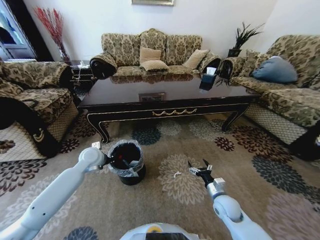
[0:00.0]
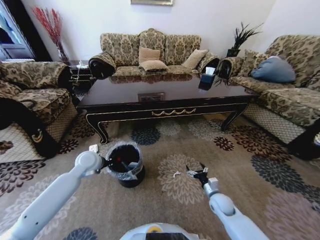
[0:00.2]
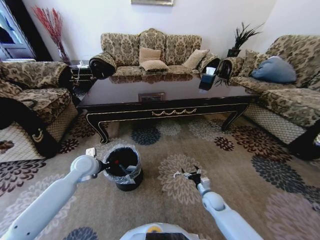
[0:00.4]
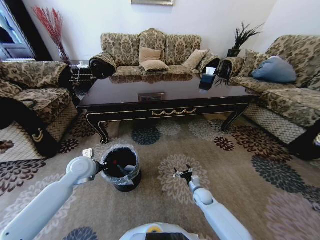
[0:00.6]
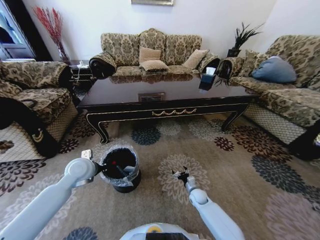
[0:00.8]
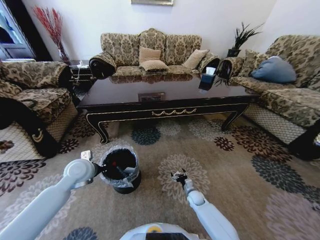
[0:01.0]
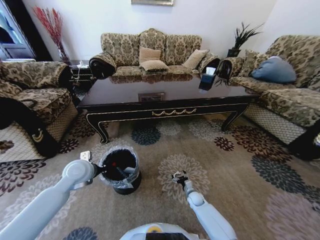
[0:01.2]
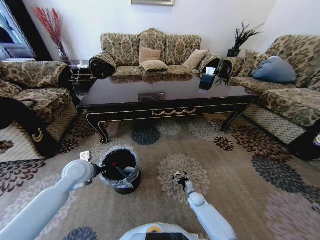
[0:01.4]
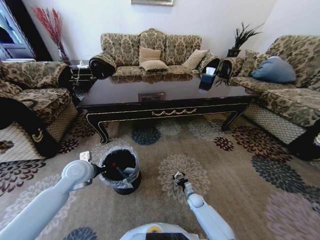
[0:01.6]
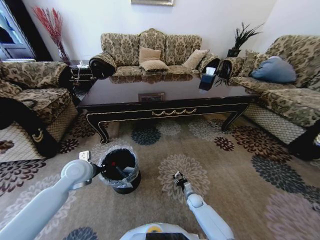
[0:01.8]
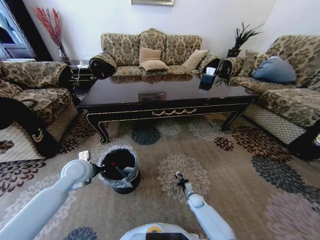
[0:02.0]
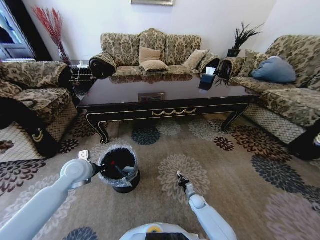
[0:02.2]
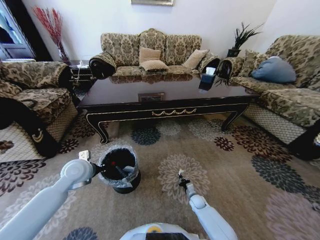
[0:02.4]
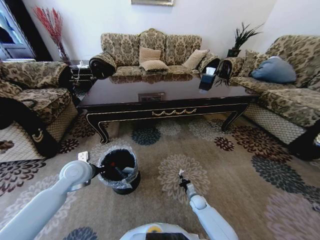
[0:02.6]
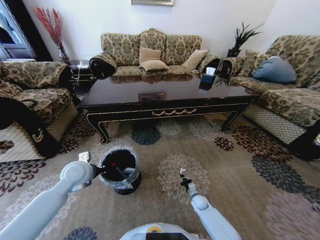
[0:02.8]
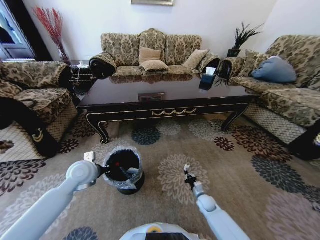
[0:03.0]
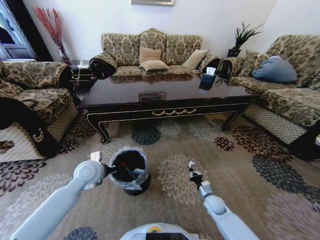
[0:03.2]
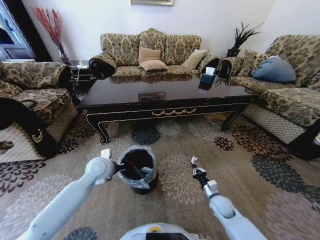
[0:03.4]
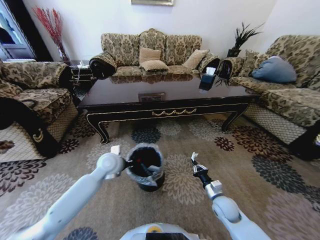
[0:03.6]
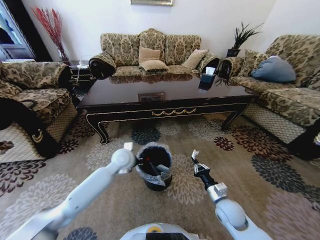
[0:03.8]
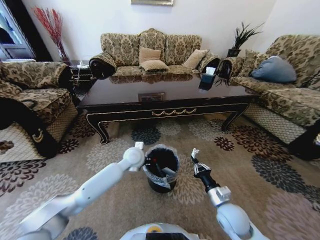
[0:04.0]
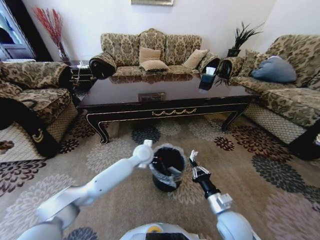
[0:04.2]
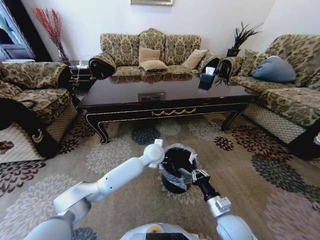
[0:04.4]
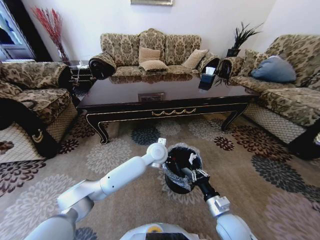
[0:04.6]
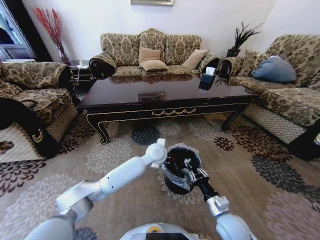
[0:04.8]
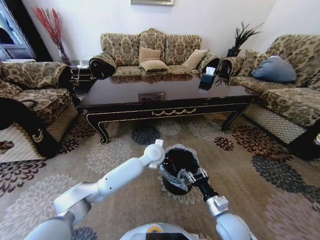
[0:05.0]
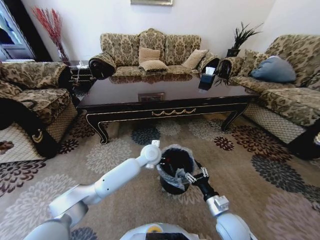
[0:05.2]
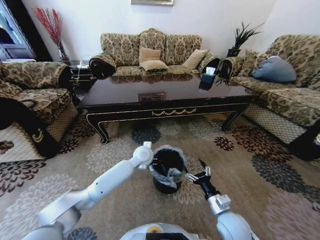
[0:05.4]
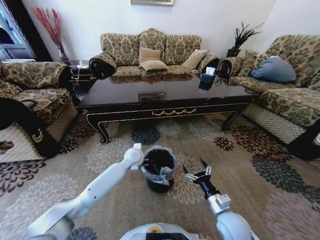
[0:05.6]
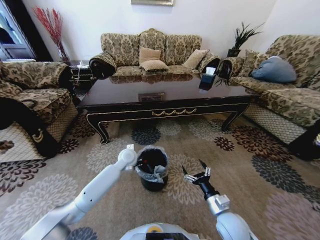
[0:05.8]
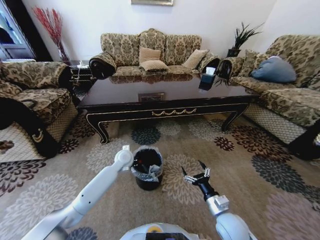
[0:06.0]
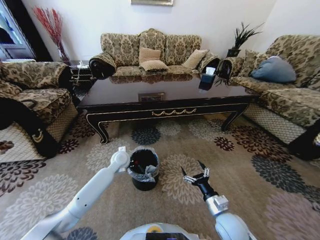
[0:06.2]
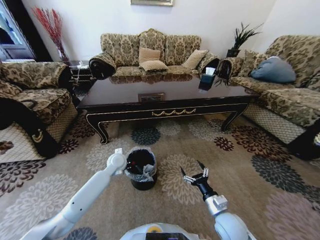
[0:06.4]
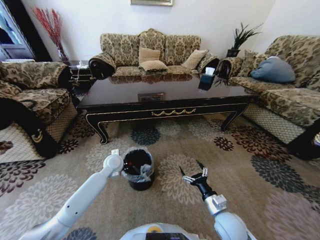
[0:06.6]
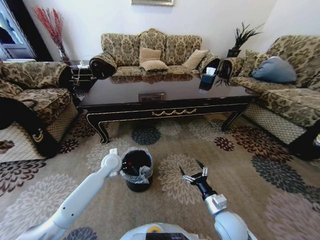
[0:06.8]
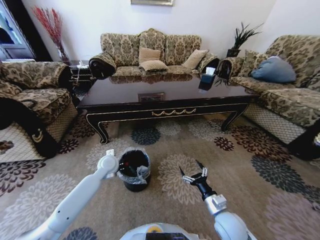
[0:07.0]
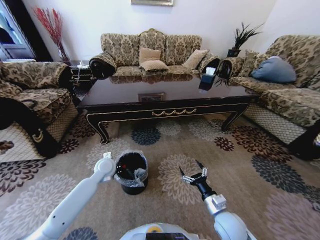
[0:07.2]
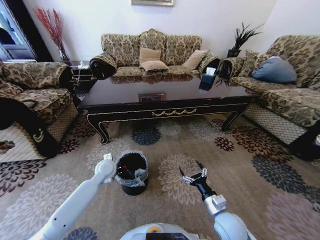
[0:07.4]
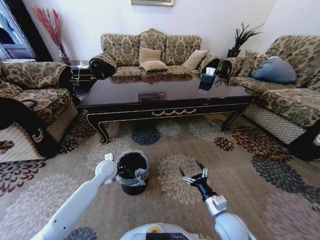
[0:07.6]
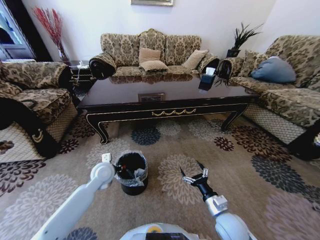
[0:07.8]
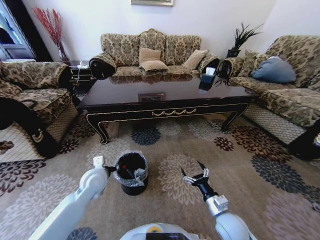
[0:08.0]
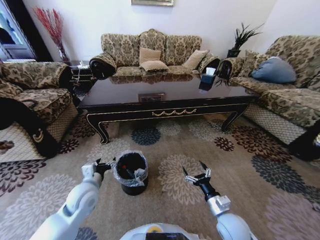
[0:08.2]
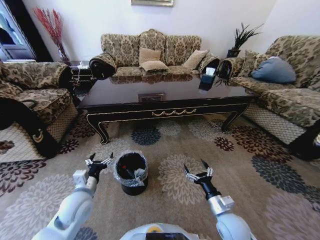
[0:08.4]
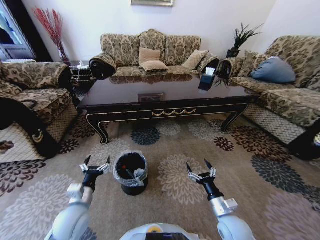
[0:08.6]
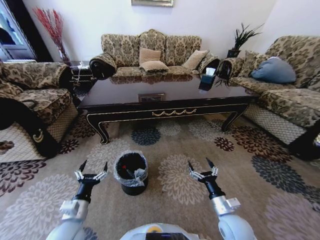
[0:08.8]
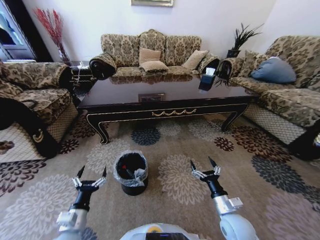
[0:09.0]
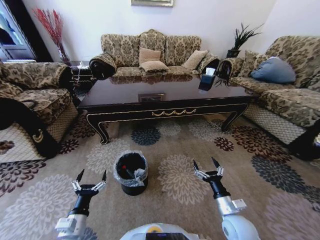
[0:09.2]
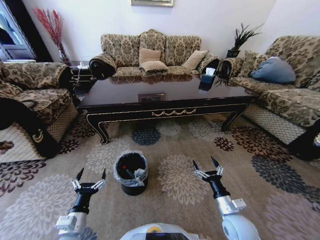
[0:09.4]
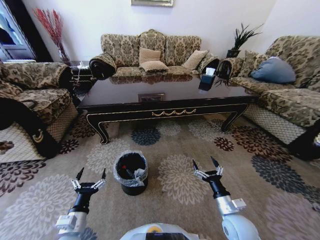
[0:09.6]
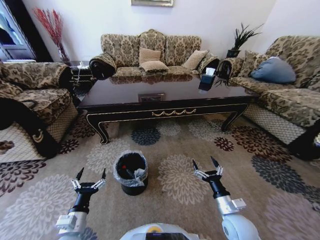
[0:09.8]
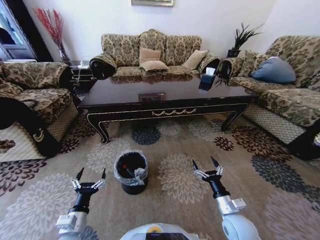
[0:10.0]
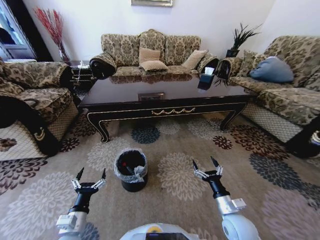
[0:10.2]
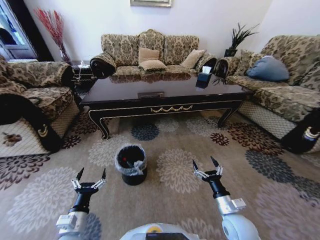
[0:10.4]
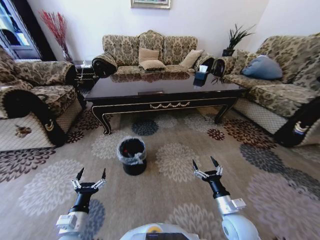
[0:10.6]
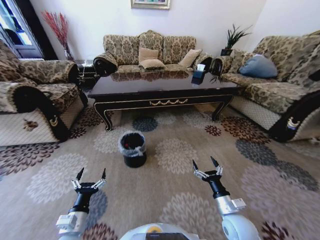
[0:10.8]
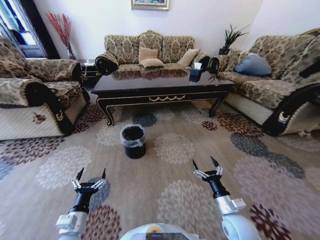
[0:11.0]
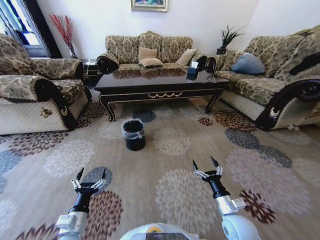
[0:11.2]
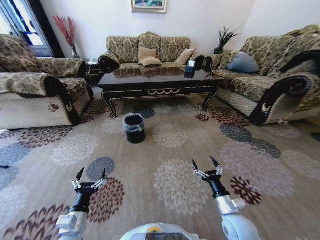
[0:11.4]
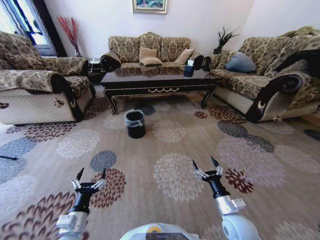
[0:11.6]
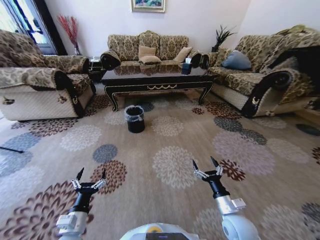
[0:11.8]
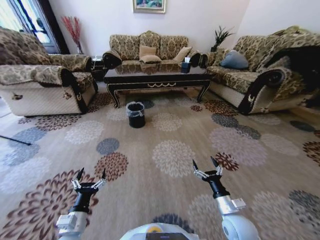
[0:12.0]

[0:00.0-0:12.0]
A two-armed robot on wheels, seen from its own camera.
Task of the whole recording: Move to the front of the table and pick up the trash from the floor, then place it into the trash bin.
0:00.0 to 0:01.6: The right gripper heads downward, covering approximately 20 cm. Meanwhile the left gripper shifts some 10 cm backward.
0:01.6 to 0:03.0: The right gripper heads upward, covering some 5 cm, and closes.
0:03.0 to 0:04.4: The right gripper travels upward and backward by approximately 25 cm. The left gripper moves to the right, some 30 cm.
0:04.4 to 0:06.0: The left gripper travels to the left and downward by some 15 cm; the right gripper opens.
0:06.0 to 0:07.6: The left gripper is displaced to the left and backward by approximately 10 cm.
0:07.6 to 0:09.0: The left gripper heads backward, covering roughly 25 cm, and opens.

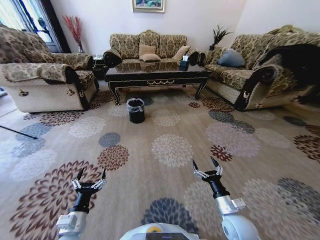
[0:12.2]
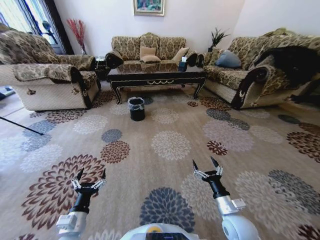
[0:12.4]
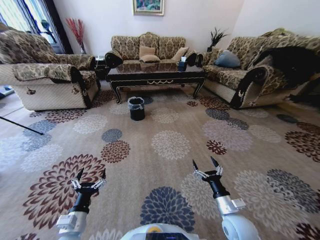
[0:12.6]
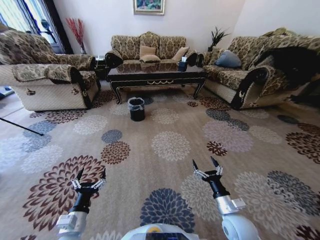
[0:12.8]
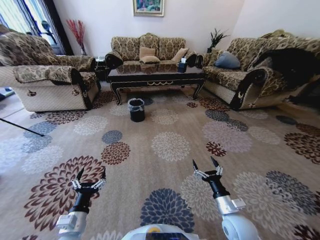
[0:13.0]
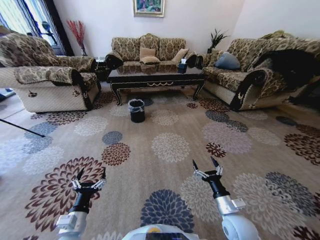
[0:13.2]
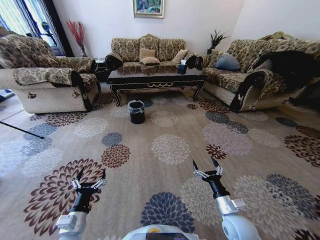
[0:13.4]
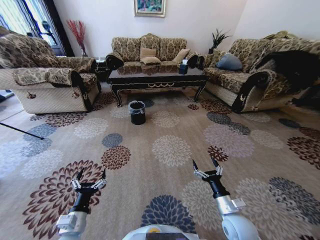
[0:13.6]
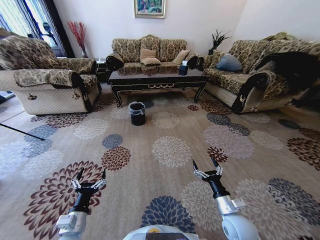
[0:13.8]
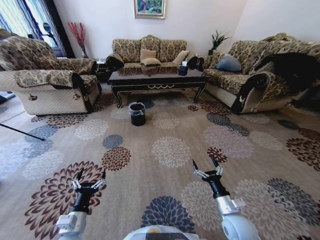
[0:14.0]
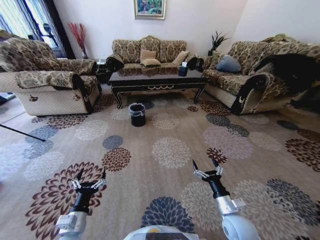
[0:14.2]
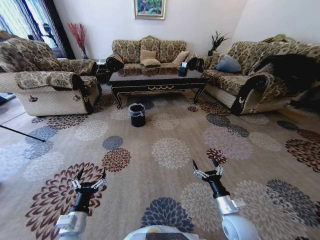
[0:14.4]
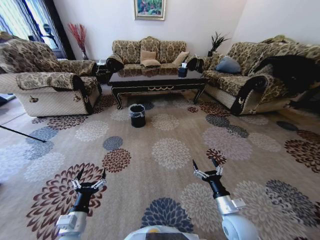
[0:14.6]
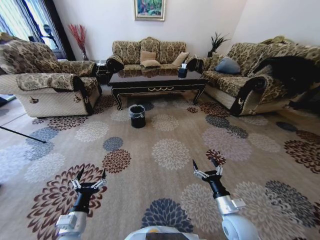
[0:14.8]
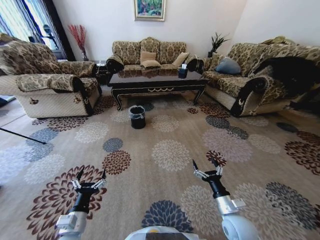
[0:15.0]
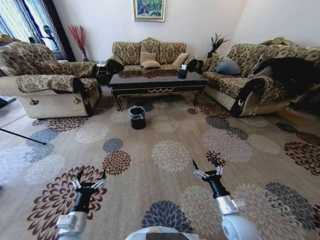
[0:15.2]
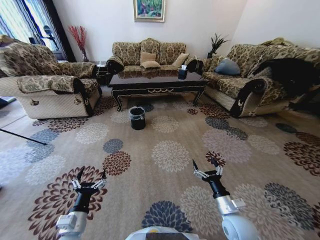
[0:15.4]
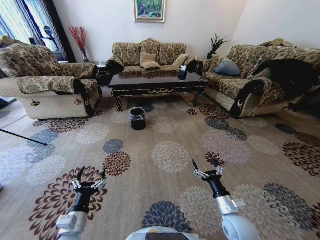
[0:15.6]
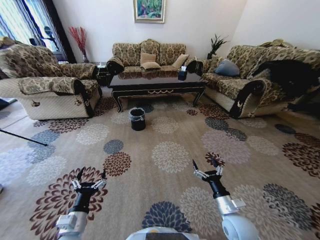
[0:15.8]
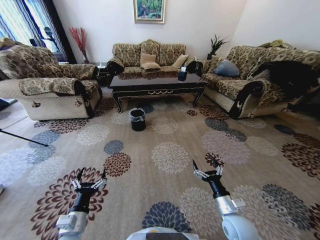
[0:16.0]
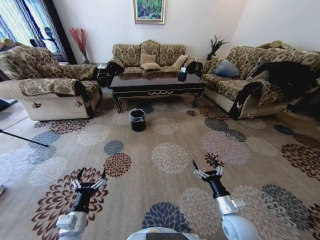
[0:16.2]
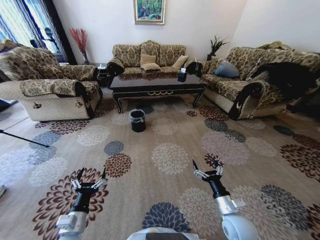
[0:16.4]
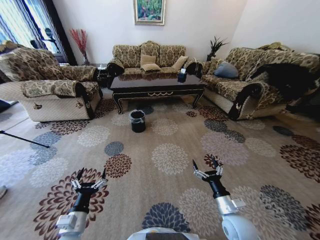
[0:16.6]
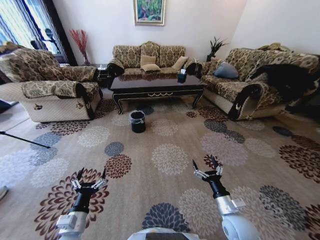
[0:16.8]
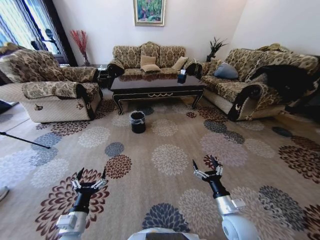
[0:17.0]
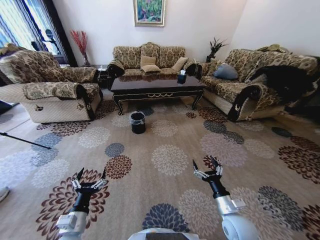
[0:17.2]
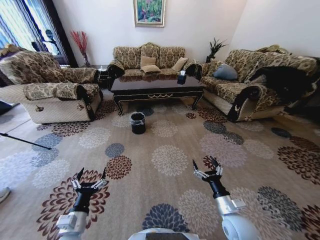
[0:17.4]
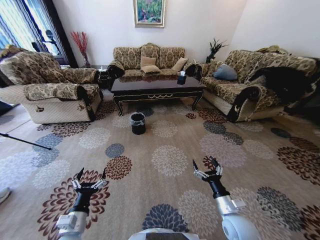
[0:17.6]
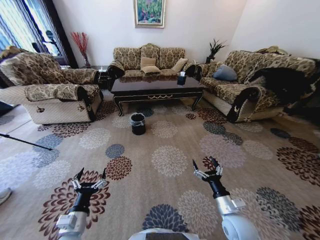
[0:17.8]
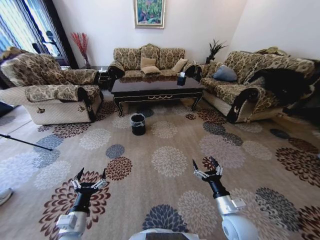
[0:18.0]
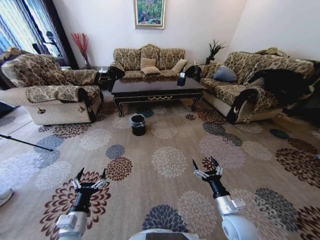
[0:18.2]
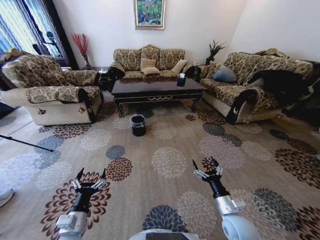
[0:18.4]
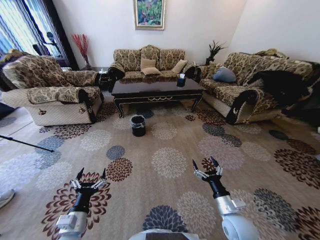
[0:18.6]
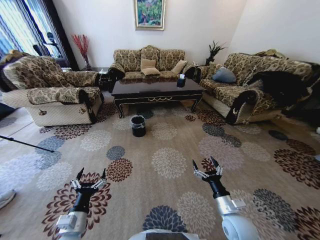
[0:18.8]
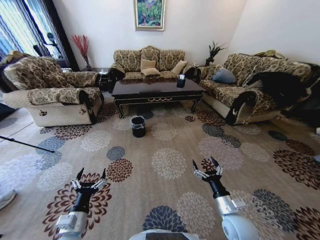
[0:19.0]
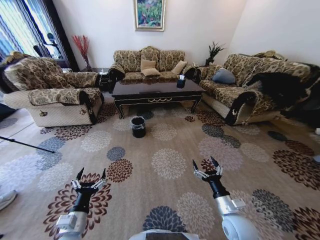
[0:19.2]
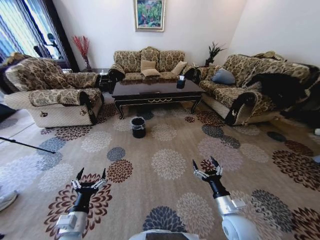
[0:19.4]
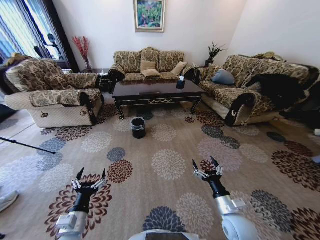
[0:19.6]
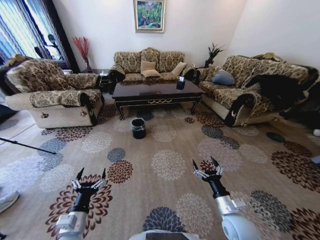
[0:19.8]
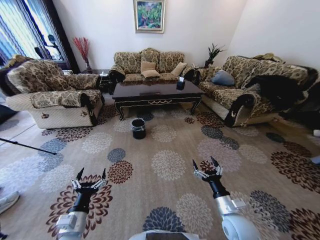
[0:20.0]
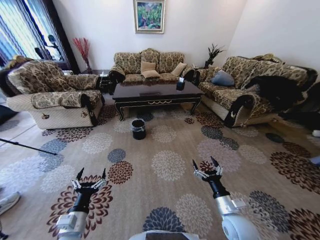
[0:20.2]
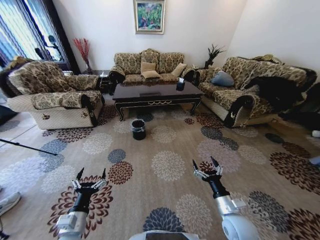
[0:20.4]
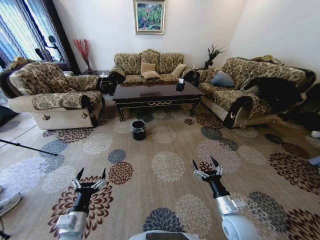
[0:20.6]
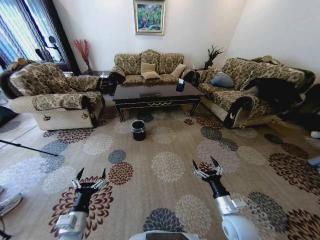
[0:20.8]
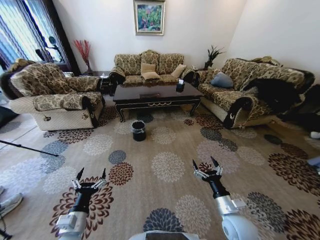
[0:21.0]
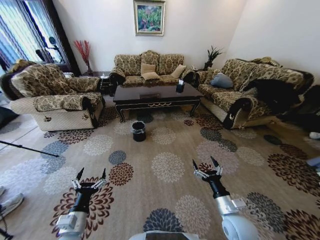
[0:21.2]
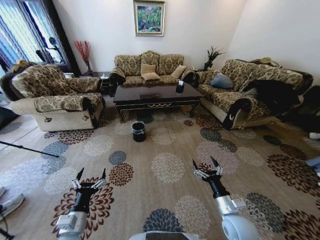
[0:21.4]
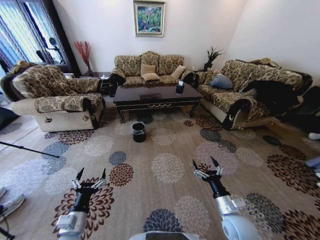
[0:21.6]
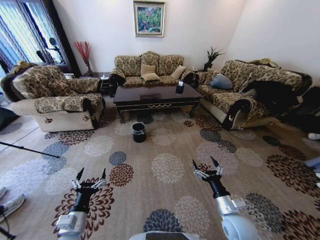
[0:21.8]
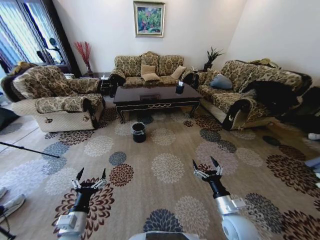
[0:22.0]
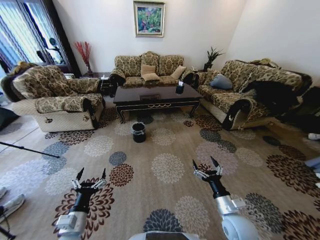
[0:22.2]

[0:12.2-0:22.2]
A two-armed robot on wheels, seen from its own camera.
Task of the whole recording: Move to the front of the table and pick up the trash from the floor, then place it into the trash bin.
0:20.8 to 0:22.2: Both grippers stay about where they are.
